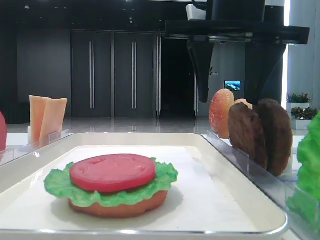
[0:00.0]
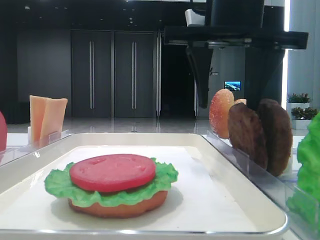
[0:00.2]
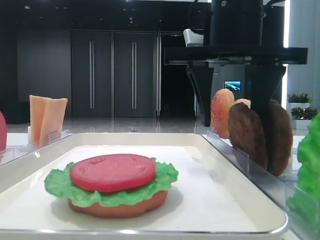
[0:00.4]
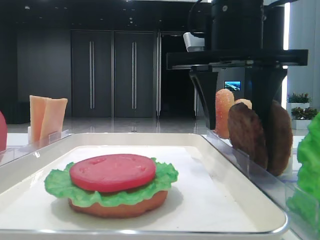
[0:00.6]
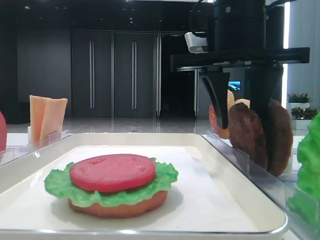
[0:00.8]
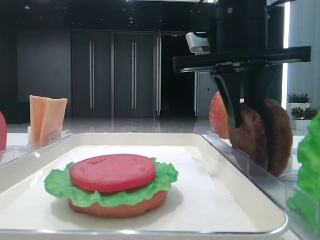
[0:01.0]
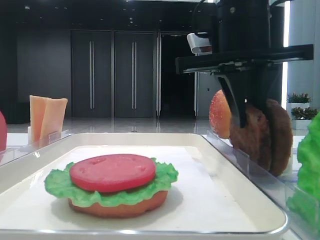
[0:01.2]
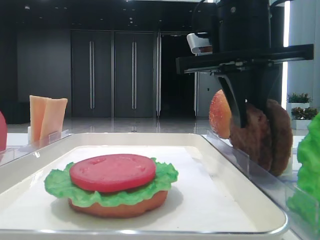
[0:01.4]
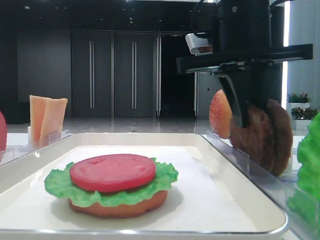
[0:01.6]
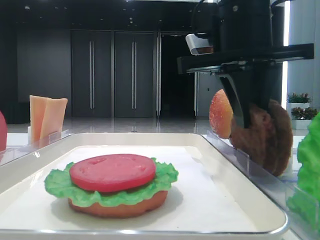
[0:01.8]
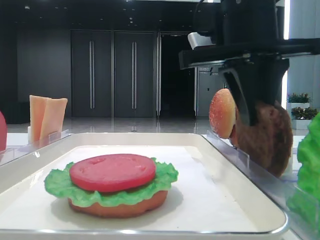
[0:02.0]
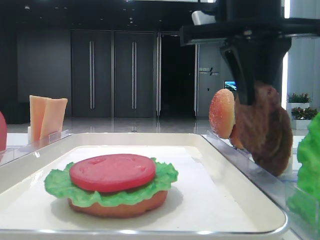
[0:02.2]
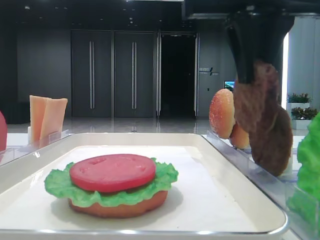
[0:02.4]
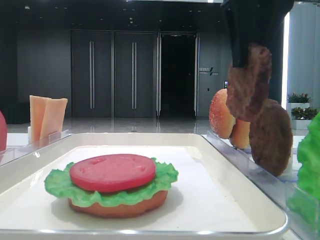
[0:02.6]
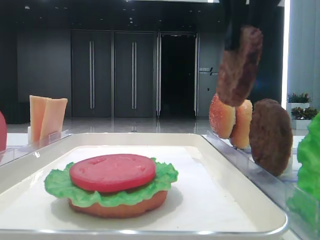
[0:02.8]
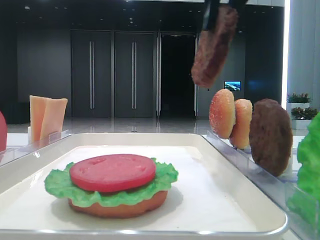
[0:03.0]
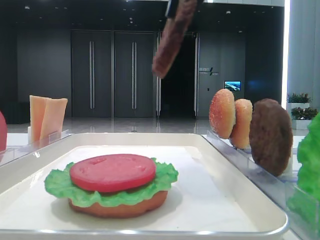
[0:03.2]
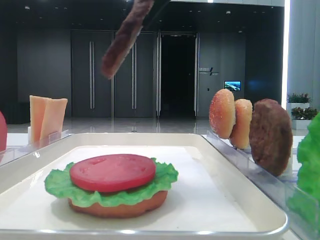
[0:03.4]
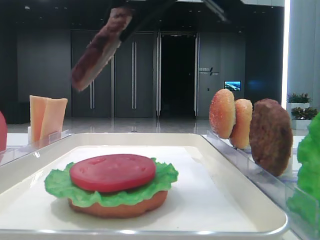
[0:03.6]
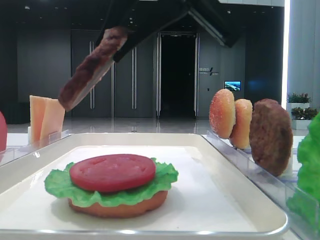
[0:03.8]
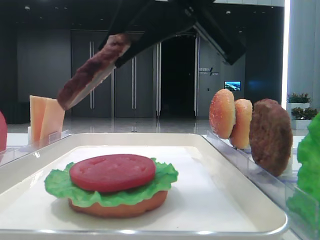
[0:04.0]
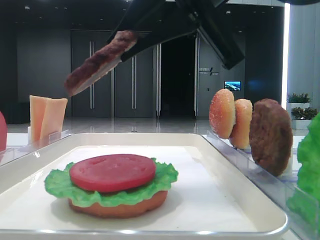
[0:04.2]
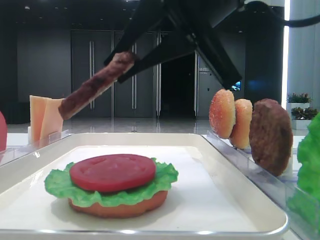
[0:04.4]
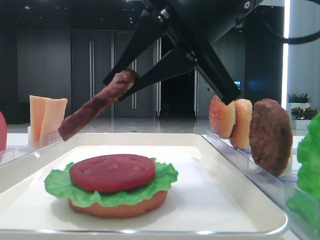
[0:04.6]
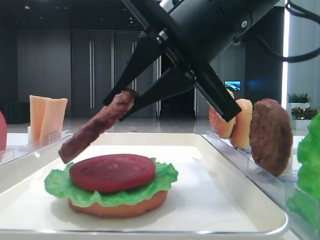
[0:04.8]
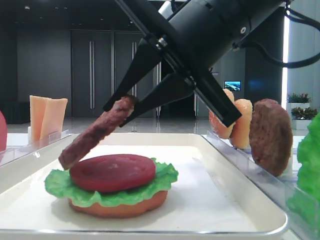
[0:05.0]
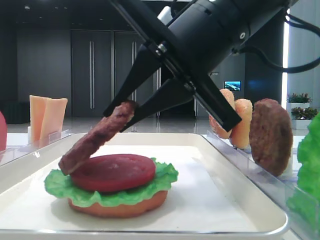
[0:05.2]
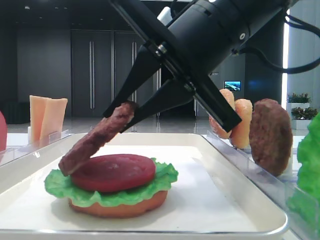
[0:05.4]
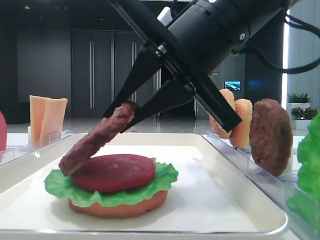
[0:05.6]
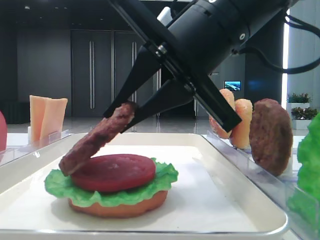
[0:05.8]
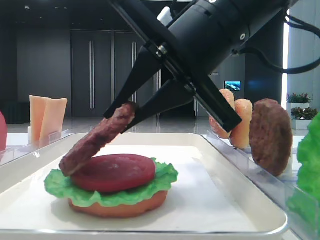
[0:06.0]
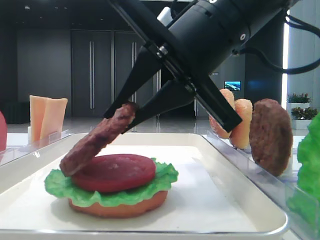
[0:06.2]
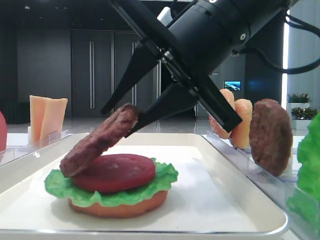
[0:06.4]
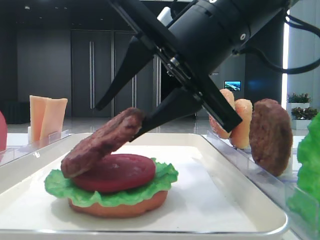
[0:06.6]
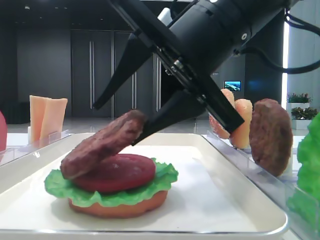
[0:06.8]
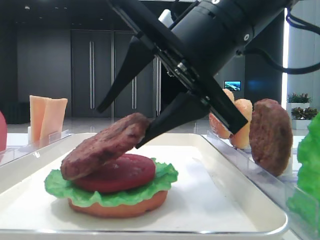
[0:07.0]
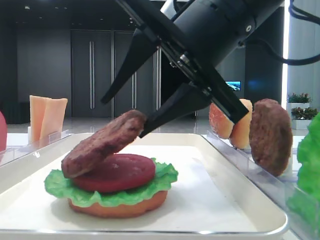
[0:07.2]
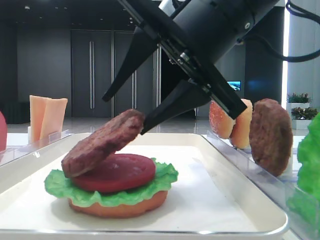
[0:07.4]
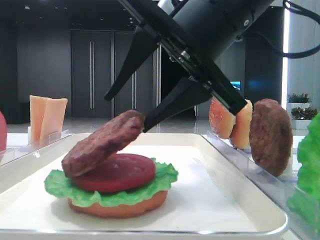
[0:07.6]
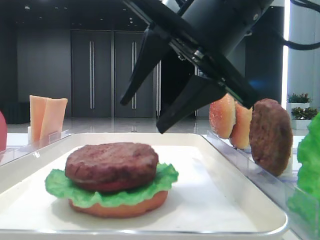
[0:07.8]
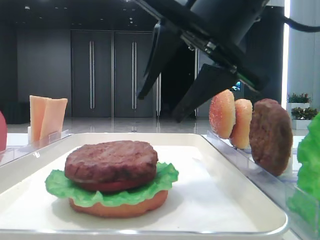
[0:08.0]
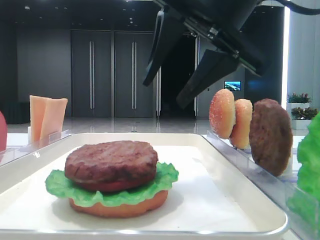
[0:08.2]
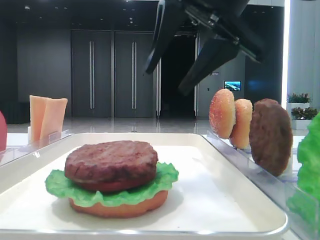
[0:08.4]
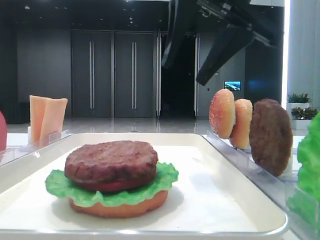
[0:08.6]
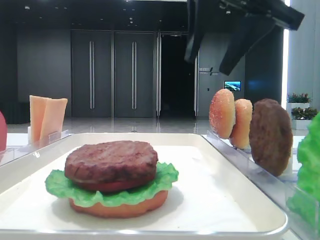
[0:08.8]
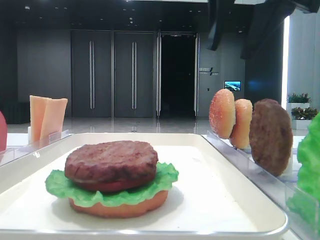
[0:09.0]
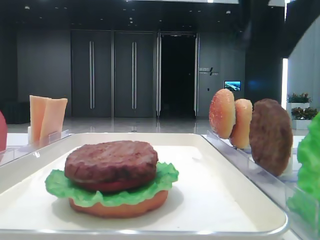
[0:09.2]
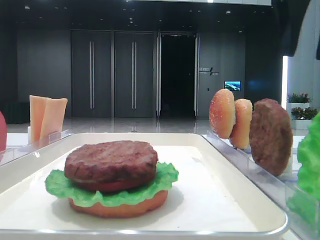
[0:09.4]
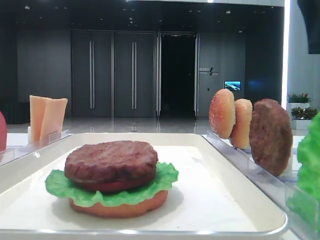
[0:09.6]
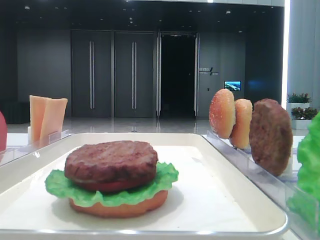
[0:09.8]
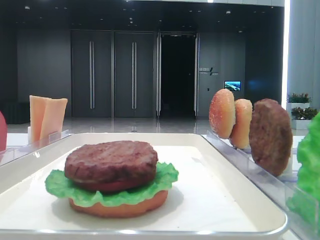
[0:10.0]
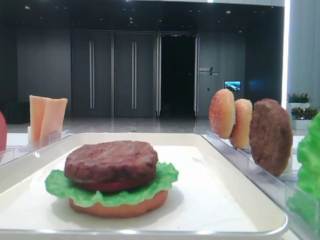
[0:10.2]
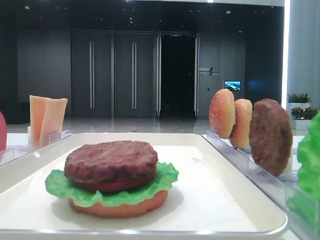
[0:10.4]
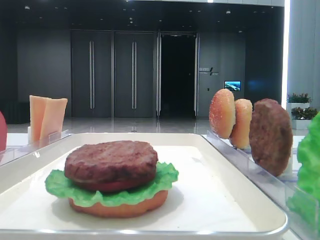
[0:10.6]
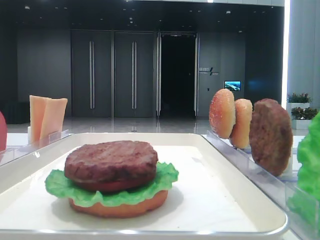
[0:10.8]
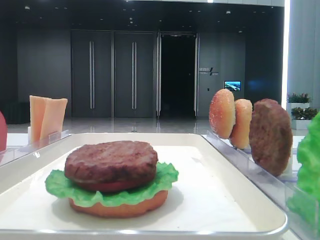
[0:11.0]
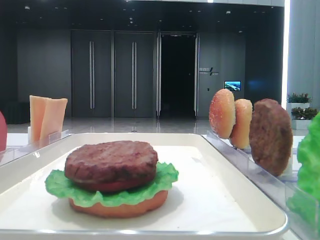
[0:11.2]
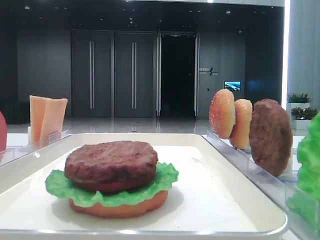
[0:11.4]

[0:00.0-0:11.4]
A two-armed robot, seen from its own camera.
Step, 0:01.8 to 0:07.6: Place the patty on the tomato slice with the right hand.
0:00.0 to 0:01.4: The right gripper closes its fingers.
0:01.4 to 0:02.8: The right gripper moves upward, some 10 cm.
0:02.8 to 0:04.2: The right gripper is displaced downward by about 5 cm.
0:04.2 to 0:05.6: The right gripper moves downward, about 5 cm.
0:05.6 to 0:07.2: The right gripper opens its fingers.
0:07.2 to 0:08.6: The right gripper shifts some 5 cm upward.
0:08.6 to 0:10.0: The right gripper travels to the right by some 20 cm.

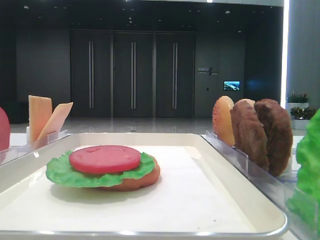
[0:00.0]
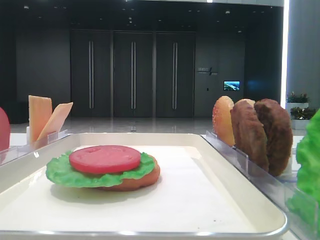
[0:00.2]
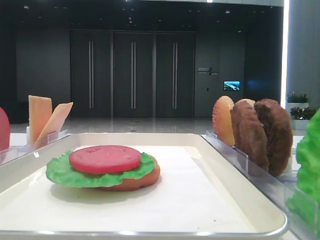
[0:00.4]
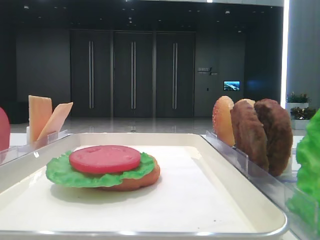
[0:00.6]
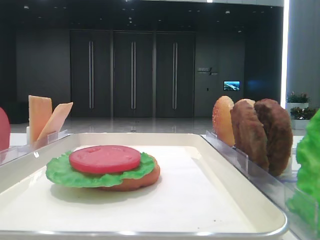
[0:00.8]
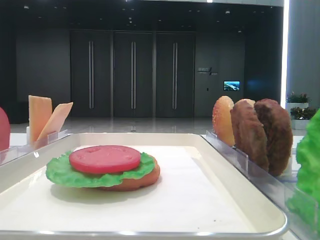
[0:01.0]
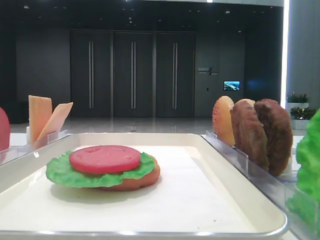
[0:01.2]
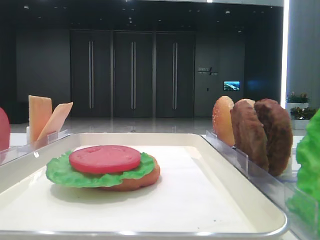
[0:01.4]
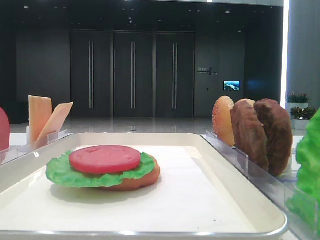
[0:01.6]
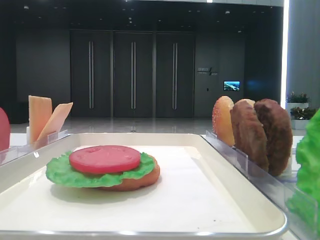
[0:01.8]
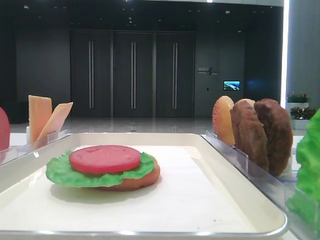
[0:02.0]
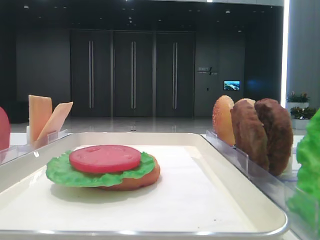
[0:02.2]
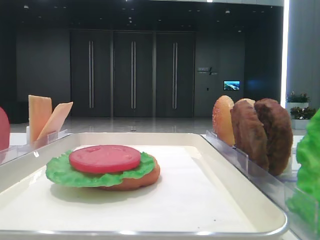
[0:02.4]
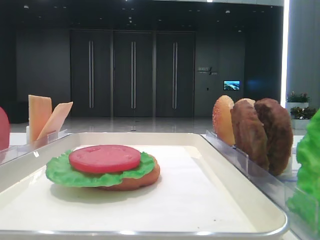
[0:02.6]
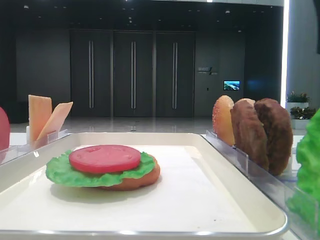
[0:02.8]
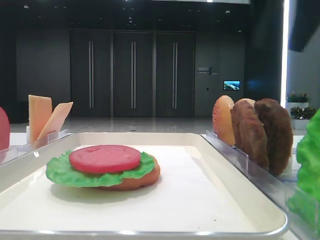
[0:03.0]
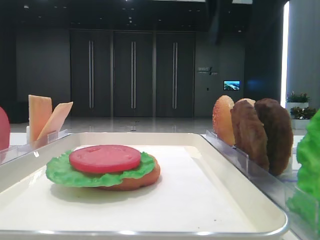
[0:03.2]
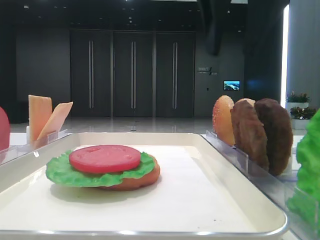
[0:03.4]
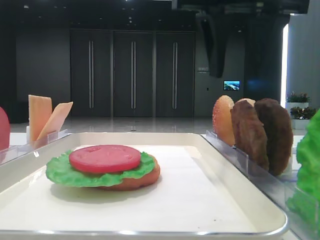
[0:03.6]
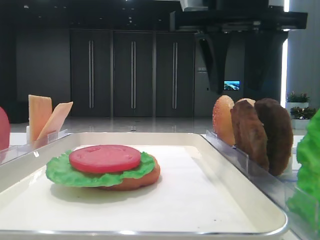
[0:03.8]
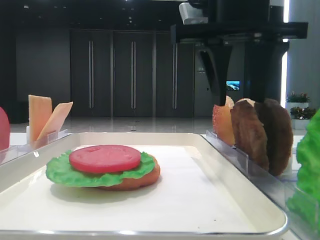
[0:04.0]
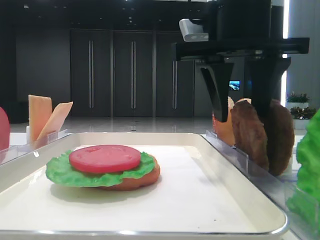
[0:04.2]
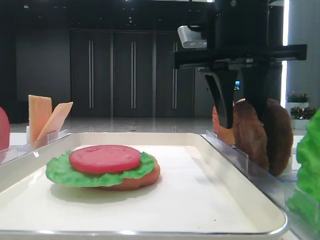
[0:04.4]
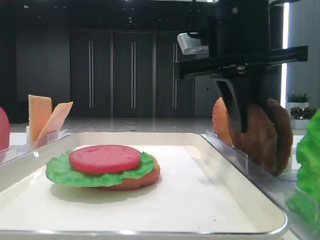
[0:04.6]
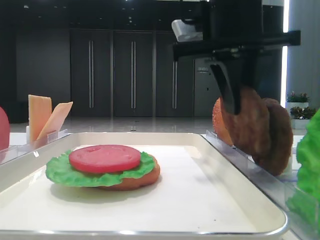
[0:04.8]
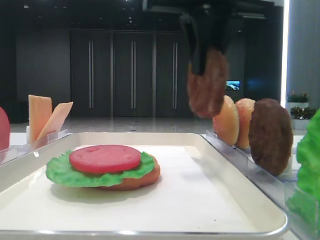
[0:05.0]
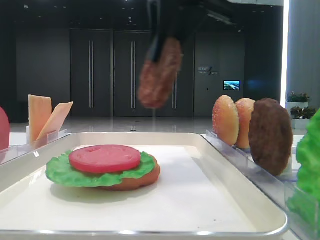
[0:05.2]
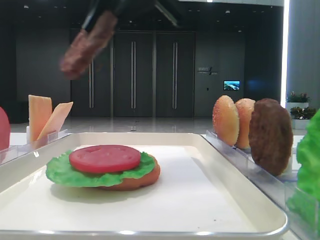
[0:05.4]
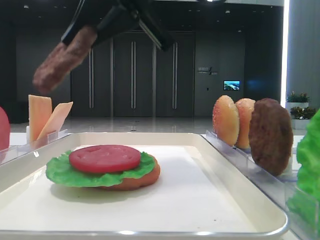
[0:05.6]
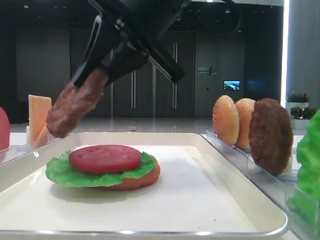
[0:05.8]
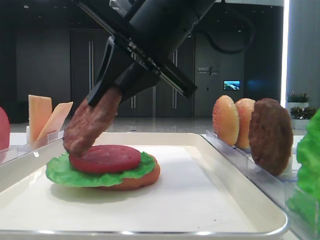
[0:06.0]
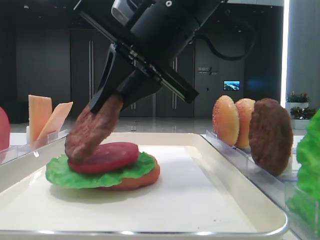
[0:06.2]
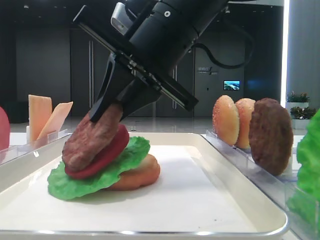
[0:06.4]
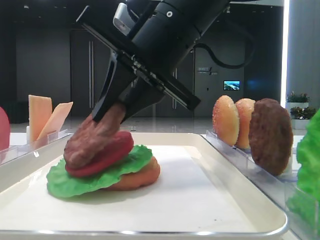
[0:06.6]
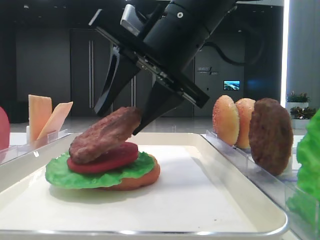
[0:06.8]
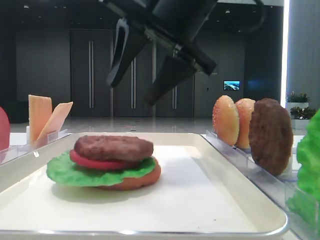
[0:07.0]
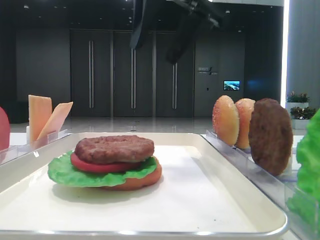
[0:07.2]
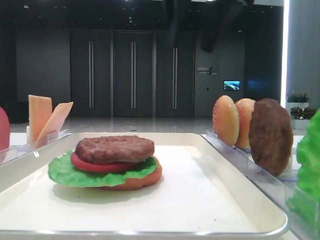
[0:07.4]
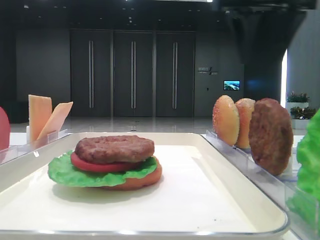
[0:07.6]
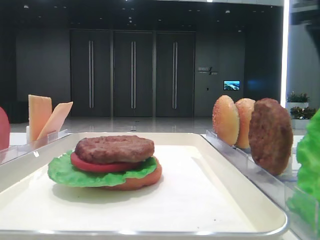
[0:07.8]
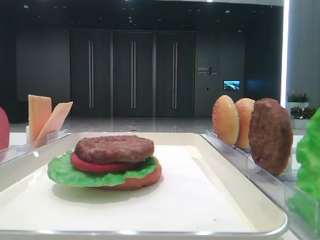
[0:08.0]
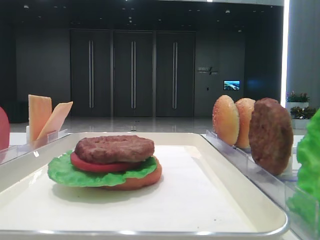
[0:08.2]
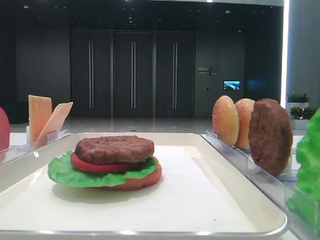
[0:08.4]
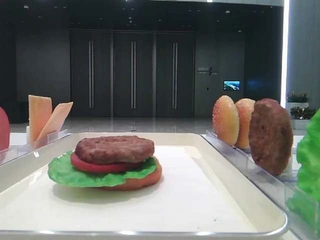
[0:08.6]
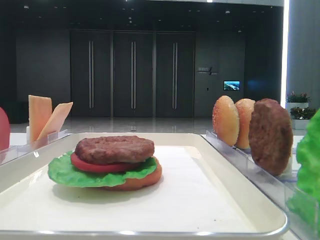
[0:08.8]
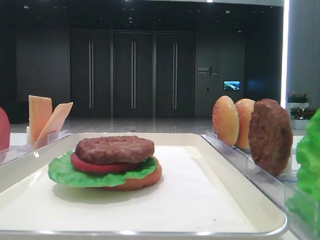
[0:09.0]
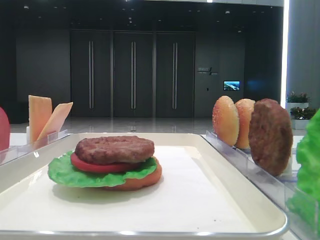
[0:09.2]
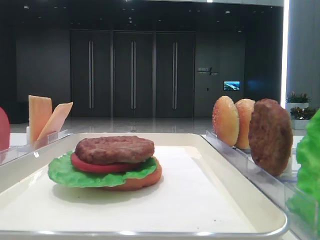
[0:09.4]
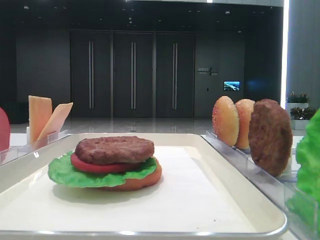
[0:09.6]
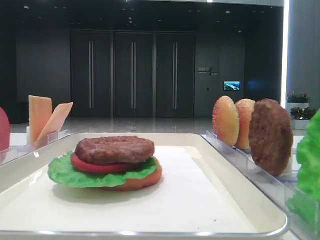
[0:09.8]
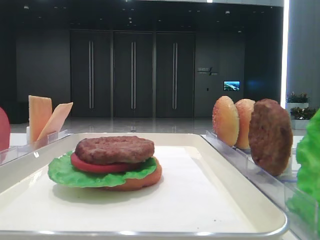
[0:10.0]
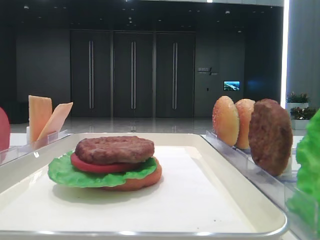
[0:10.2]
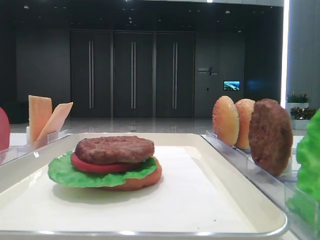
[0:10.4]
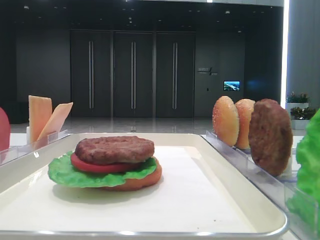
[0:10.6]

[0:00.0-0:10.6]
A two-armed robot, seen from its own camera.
Step, 0:00.0 to 0:04.4: Grab the patty with the right hand.
Step, 0:04.6 to 0:06.8: Place the patty on the tomato slice with the right hand.
0:01.6 to 0:03.0: The right gripper moves forward and to the left, roughly 30 cm.
0:03.0 to 0:04.6: The right gripper travels downward and to the left by roughly 10 cm, and closes.
0:04.6 to 0:06.0: The right gripper shifts some 5 cm to the left.
0:06.0 to 0:07.6: The right gripper moves to the right, upward and forward, about 20 cm, and opens.
0:07.6 to 0:09.0: The right gripper shifts some 30 cm backward and to the right.
